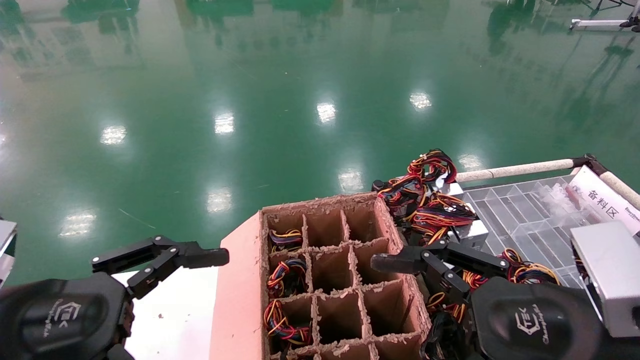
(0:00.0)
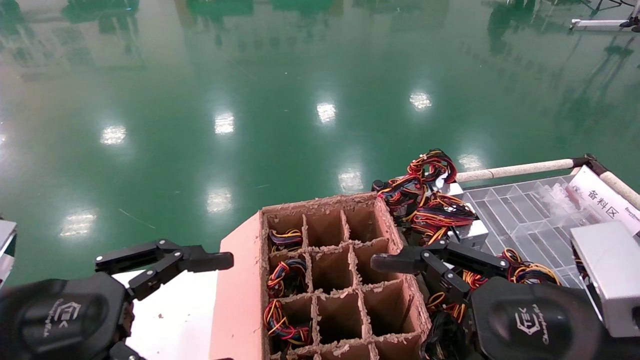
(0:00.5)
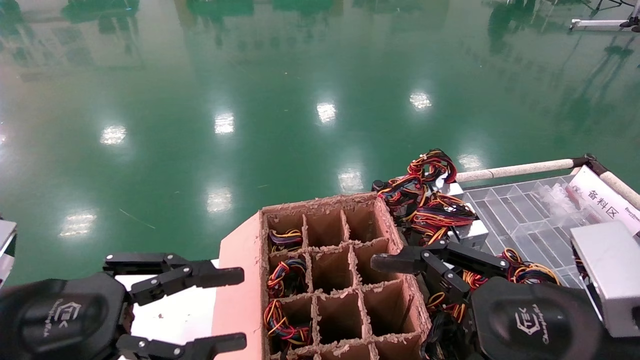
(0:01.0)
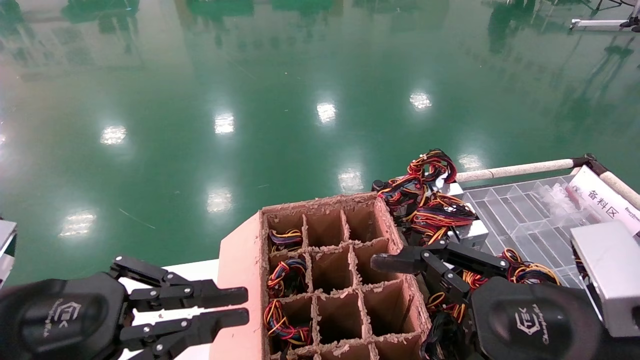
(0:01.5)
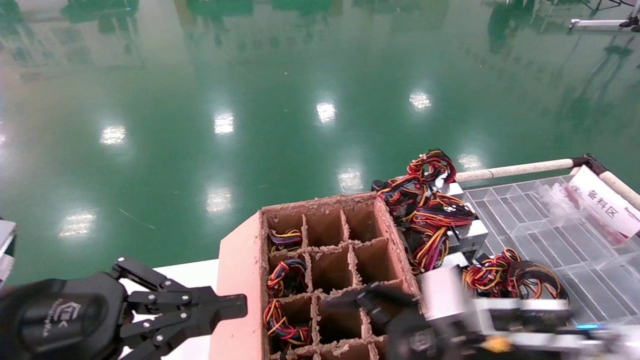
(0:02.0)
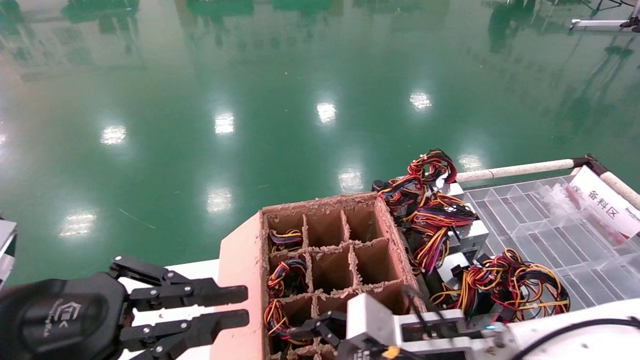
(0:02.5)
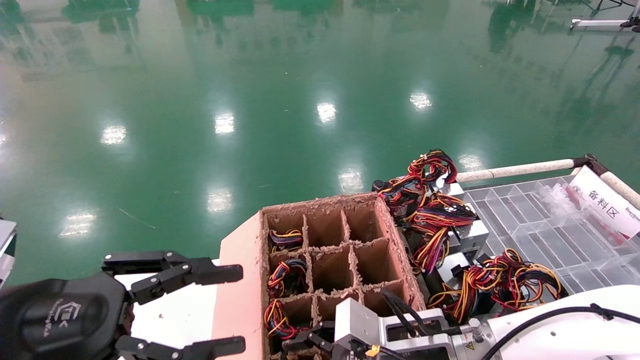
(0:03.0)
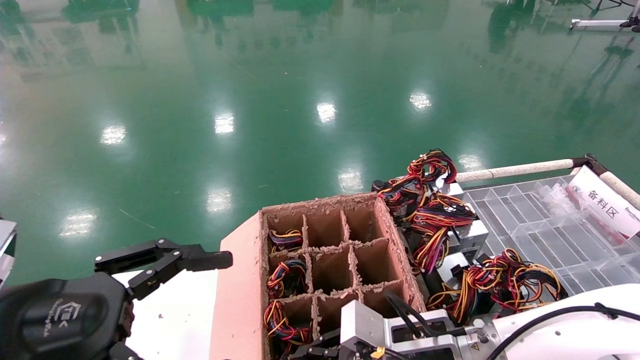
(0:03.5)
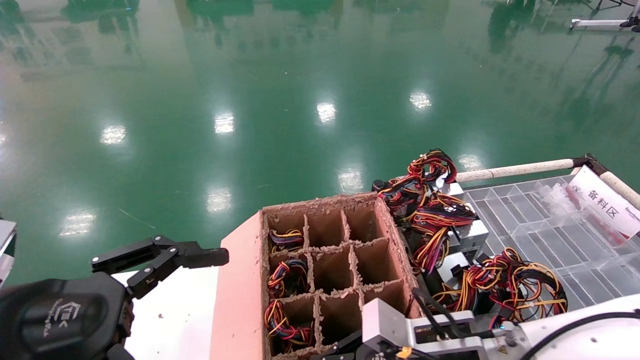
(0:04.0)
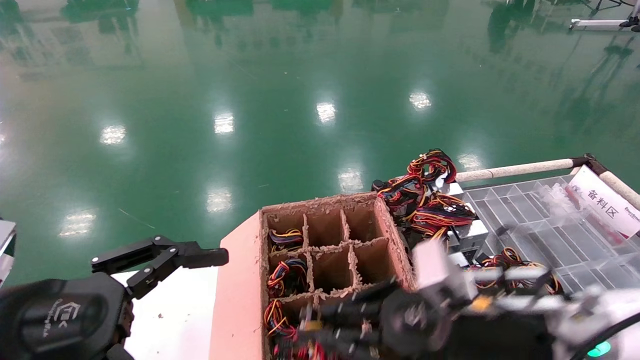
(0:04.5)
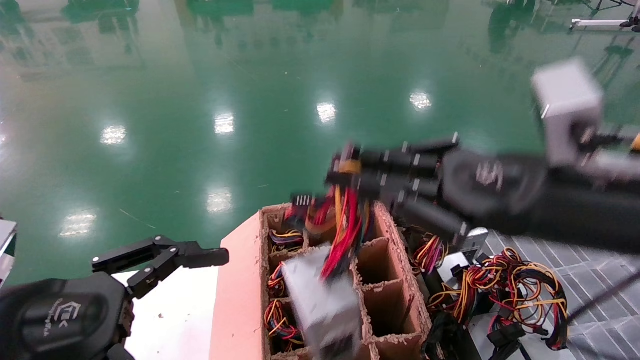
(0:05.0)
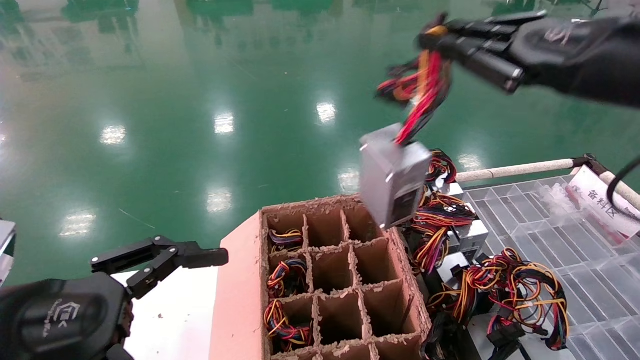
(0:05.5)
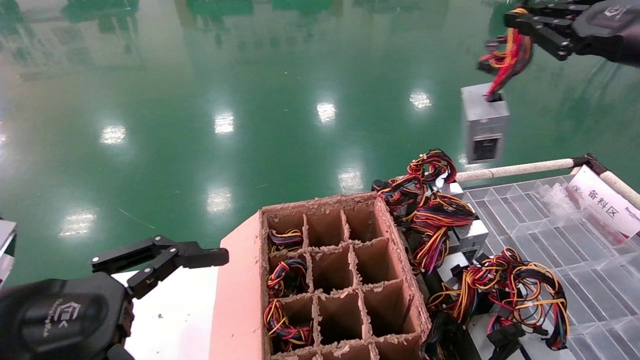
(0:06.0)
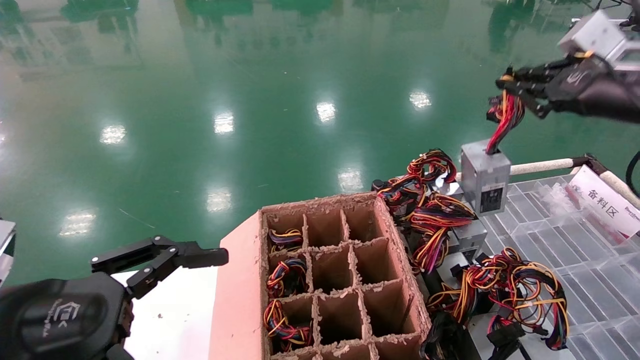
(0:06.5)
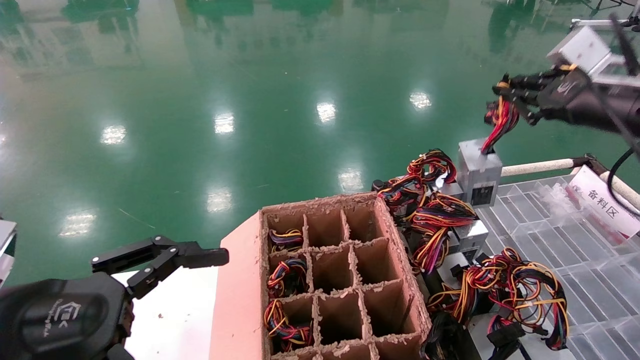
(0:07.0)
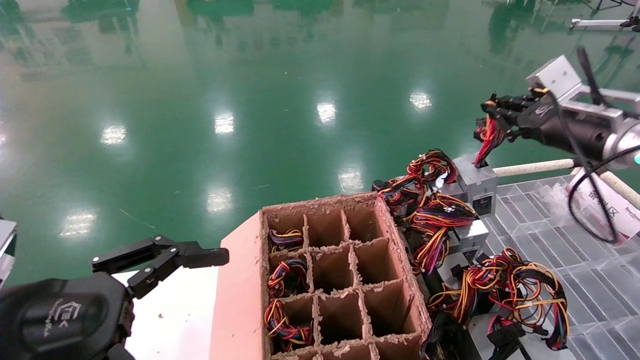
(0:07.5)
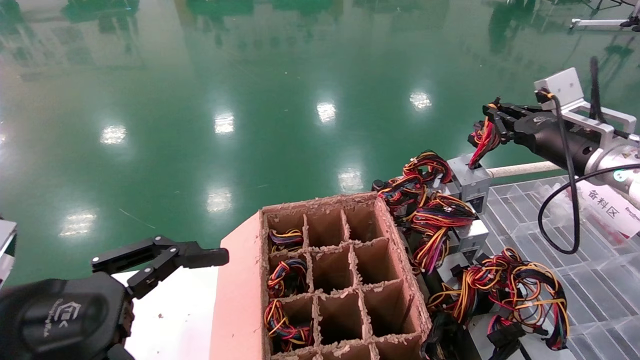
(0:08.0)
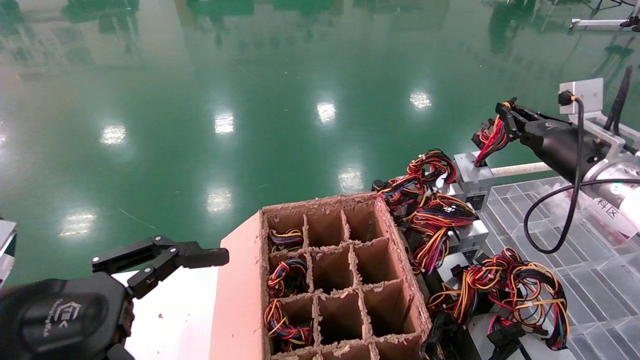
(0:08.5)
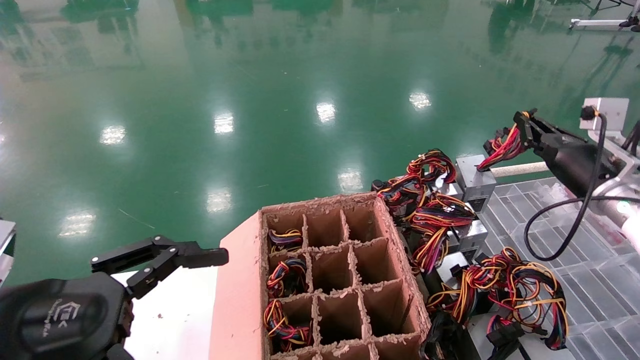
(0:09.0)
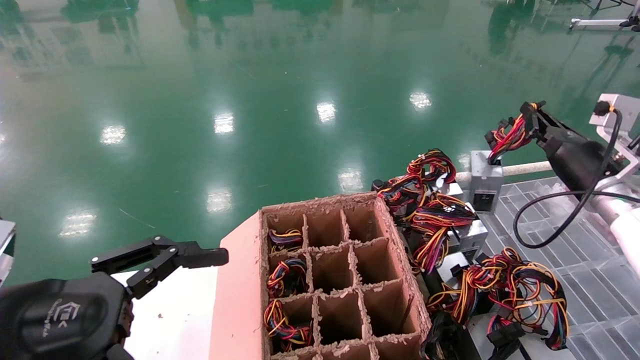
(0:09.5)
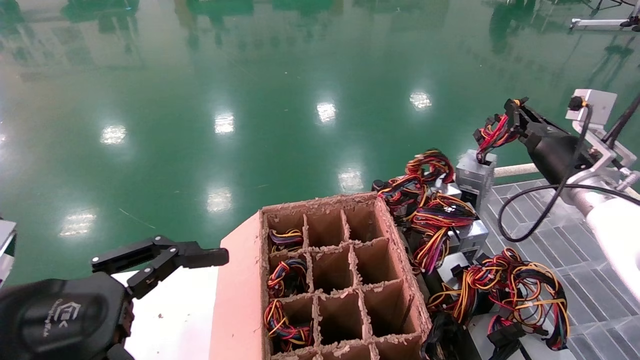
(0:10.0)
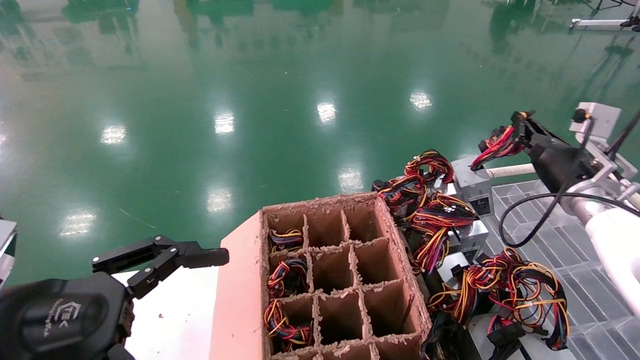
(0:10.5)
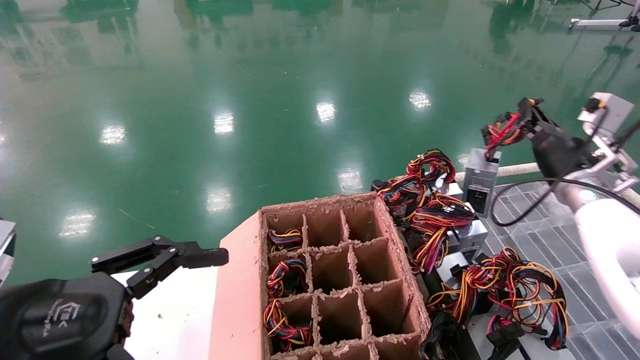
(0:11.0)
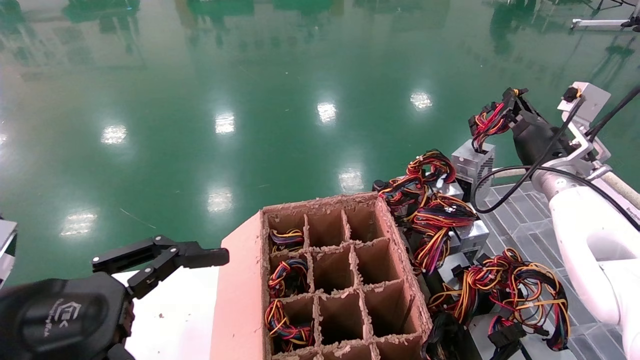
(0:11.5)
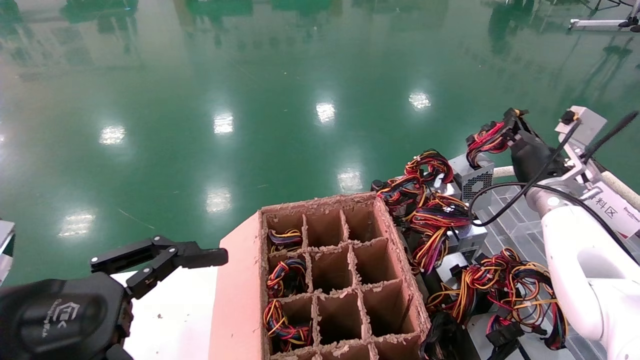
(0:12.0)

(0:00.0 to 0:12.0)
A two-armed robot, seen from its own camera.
Step, 0:02.0 - 0:03.5: Grab and lift the power supply from the large box.
0:00.0 - 0:02.0: The right gripper is displaced forward and downward by approximately 10 cm. Meanwhile the left gripper closes its fingers.
0:02.0 - 0:04.0: The right gripper shifts some 5 cm forward, and closes. Meanwhile the left gripper opens.
0:04.0 - 0:06.0: The right gripper shifts roughly 40 cm upward and to the right.
0:06.0 - 0:08.0: The right gripper goes roughly 15 cm downward and forward.
0:08.0 - 0:10.0: The right gripper changes place by approximately 5 cm.
0:10.0 - 0:12.0: The grippers stay close to where they were, moving slightly.

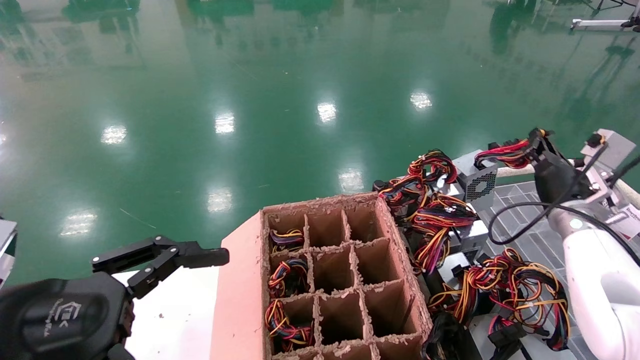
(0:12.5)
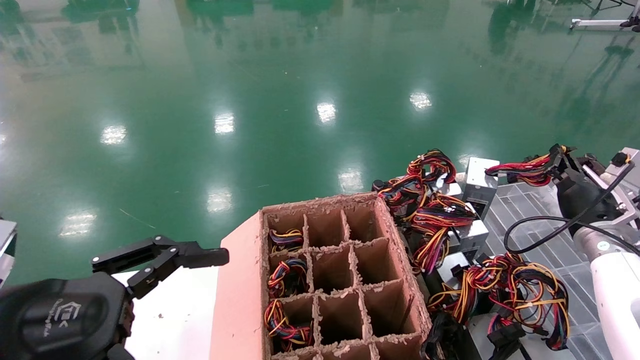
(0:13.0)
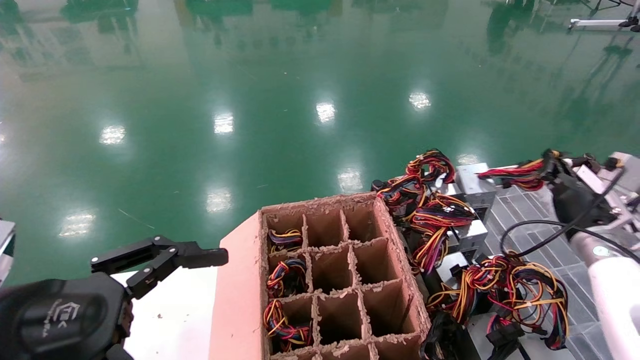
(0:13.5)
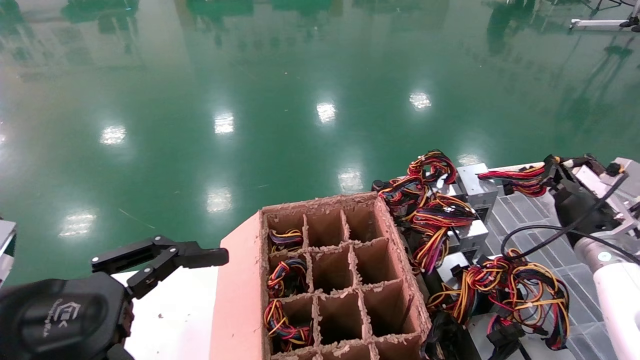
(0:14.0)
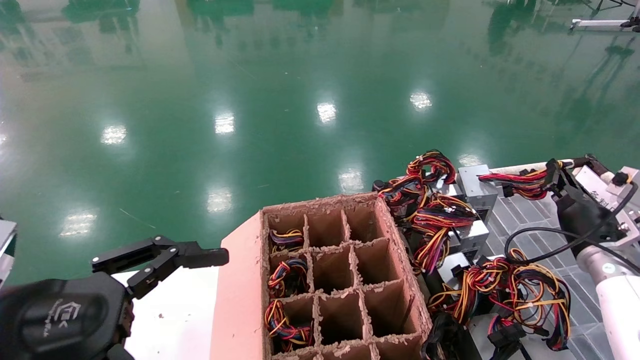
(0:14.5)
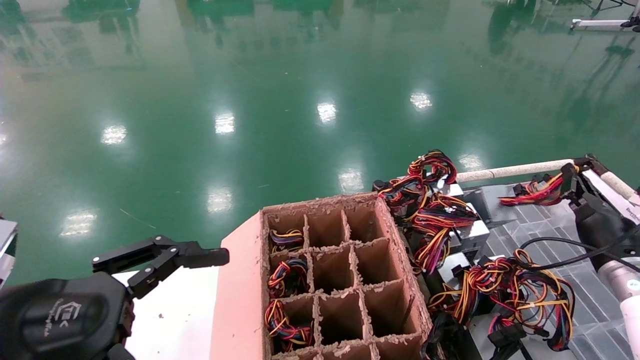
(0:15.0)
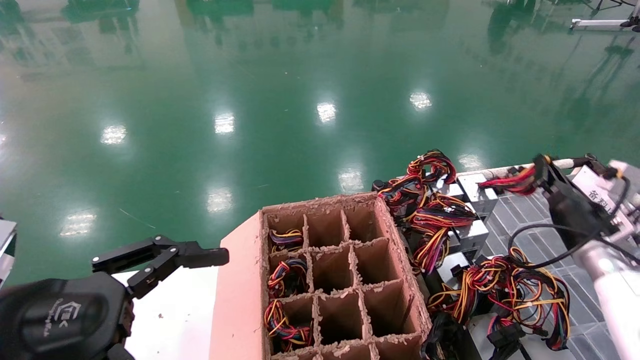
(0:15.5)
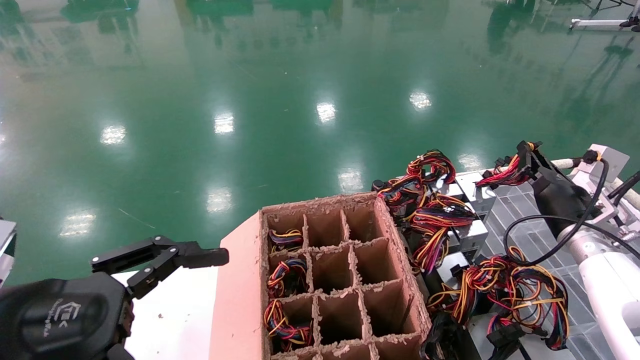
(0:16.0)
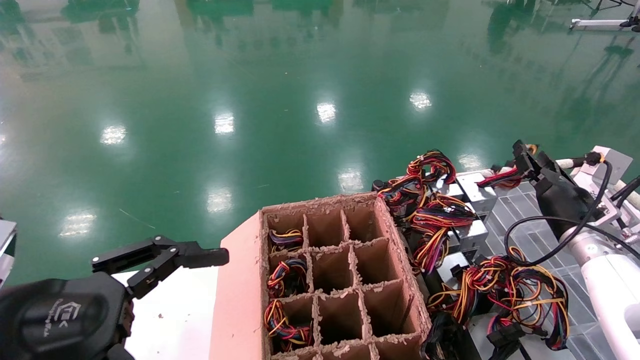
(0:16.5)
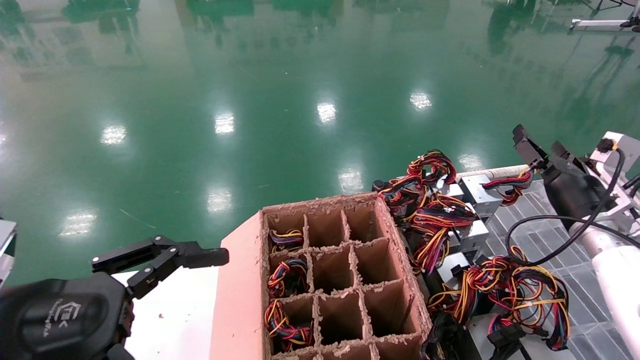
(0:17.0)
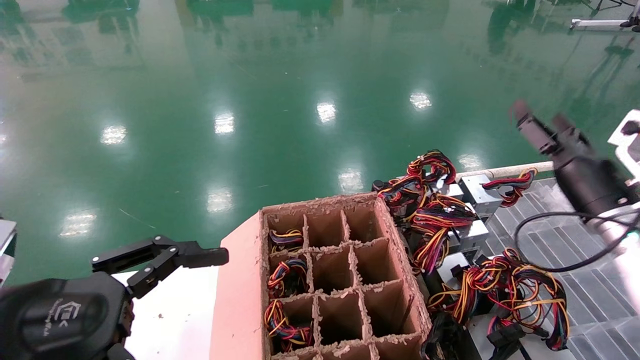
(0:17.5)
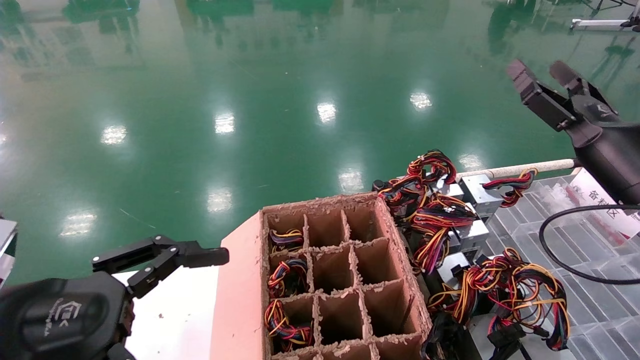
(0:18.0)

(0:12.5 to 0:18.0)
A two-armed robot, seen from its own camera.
Step, 0:12.5 - 0:16.0: Place the power supply on the operating table.
0:12.5 - 0:14.5: The right gripper shifts roughly 5 cm downward.
0:14.5 - 0:16.0: There are only small adjustments of the grippers.
0:16.0 - 0:18.0: The right gripper goes roughly 15 cm upward and backward, and opens.
